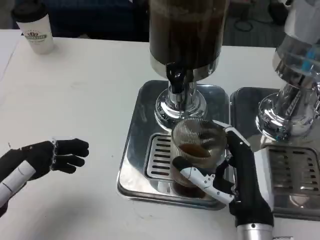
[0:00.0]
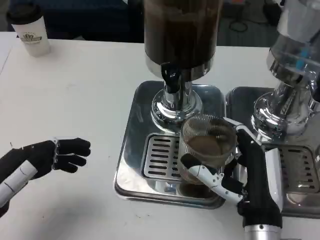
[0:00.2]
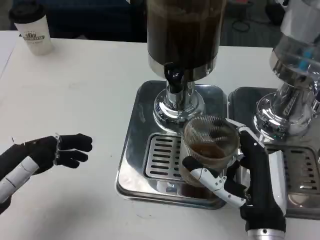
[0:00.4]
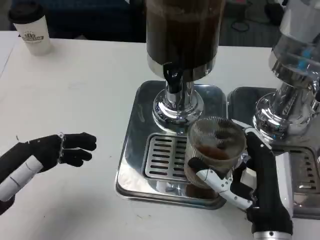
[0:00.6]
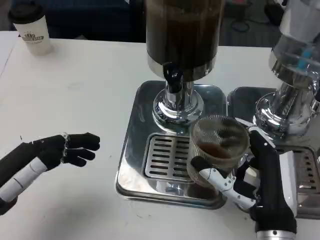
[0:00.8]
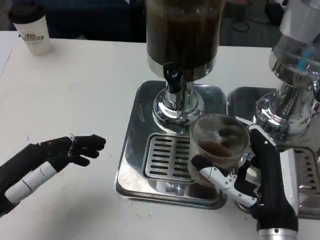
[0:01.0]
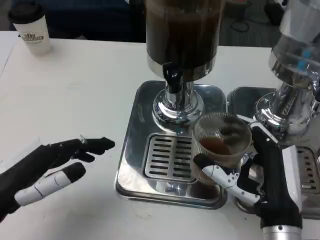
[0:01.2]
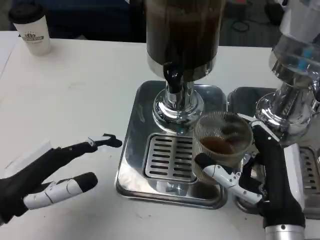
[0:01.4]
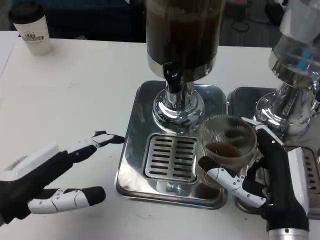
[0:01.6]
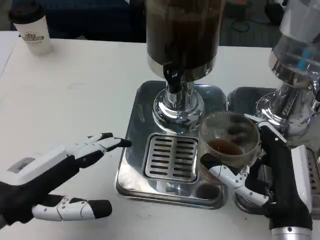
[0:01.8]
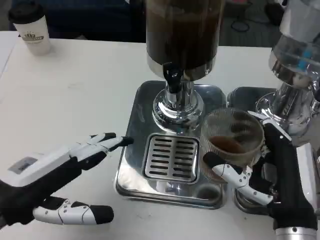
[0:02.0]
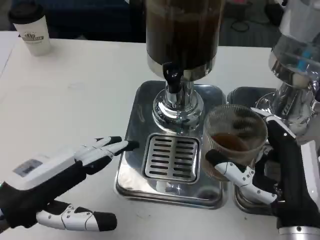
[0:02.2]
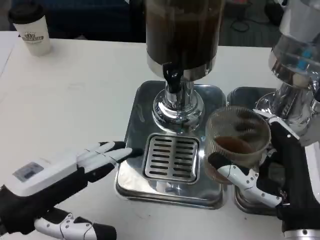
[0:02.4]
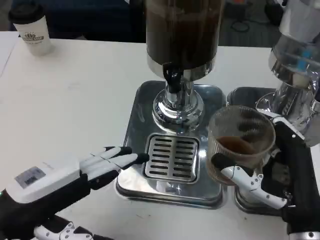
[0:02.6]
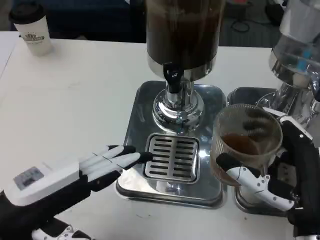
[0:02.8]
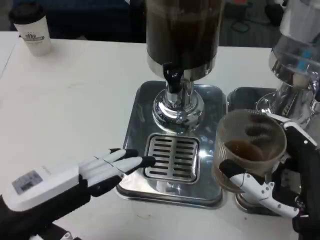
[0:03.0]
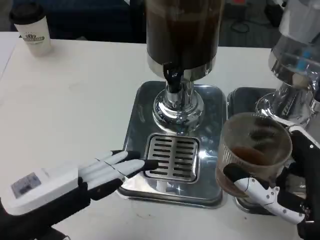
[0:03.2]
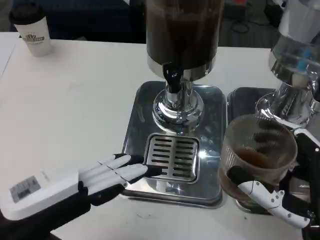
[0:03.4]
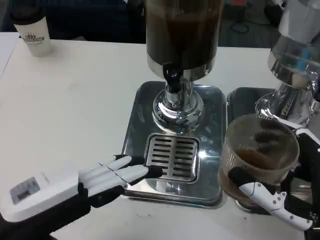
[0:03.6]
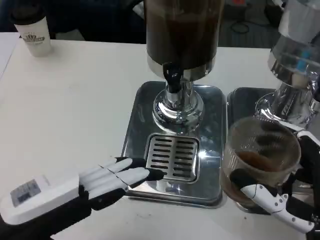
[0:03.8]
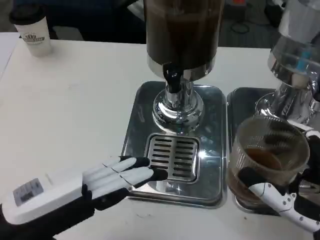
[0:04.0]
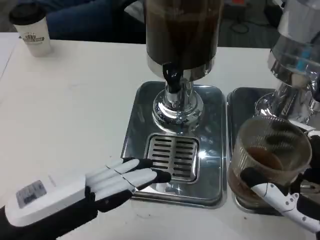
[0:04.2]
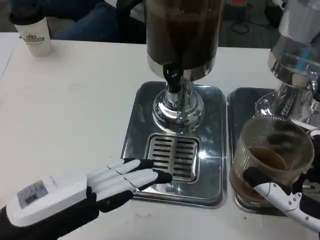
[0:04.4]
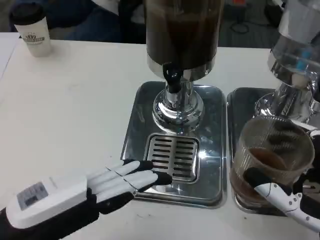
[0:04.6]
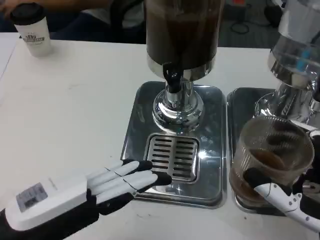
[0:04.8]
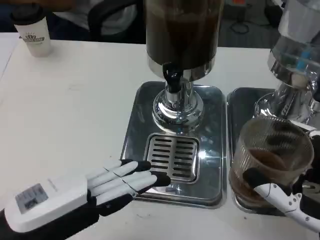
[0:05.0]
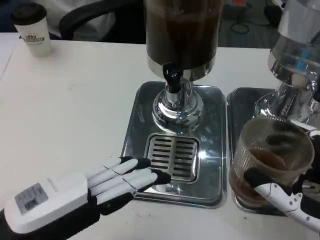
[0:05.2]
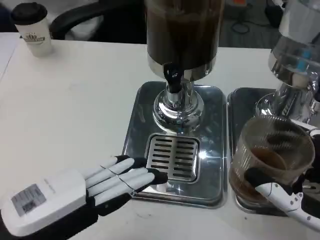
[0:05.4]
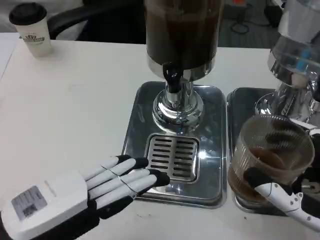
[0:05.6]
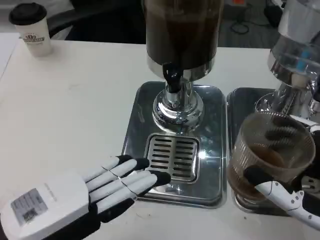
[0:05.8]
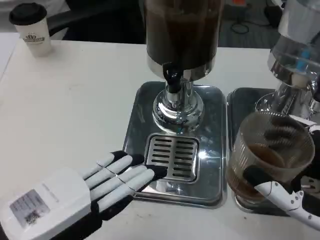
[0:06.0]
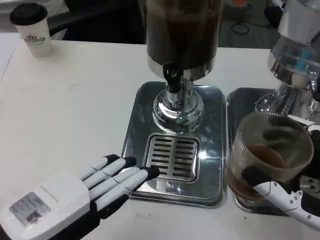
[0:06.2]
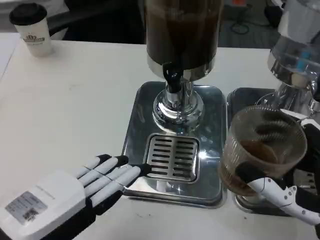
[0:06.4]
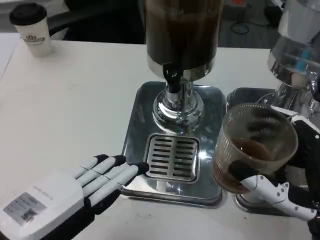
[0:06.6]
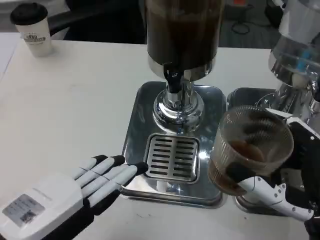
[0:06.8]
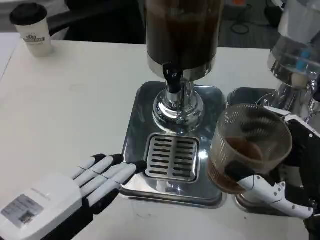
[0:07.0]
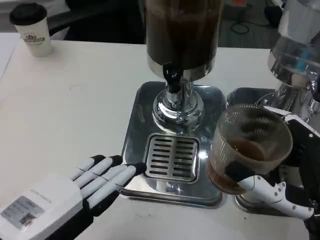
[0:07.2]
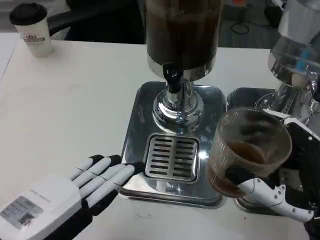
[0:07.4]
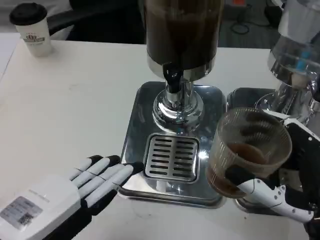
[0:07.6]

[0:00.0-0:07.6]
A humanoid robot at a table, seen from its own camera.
Task of the whole recording: Grasp the cup under the faucet to collect the drink, then remove the cup.
0:01.6 to 0:03.0: The right hand changes place by roughly 5 cm.
0:04.6 to 0:06.0: The hands make only small movements.
0:06.0 to 0:07.6: The hands move only a little.

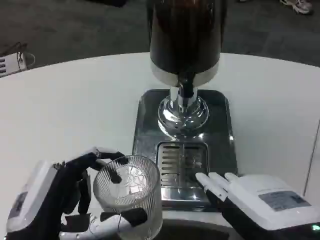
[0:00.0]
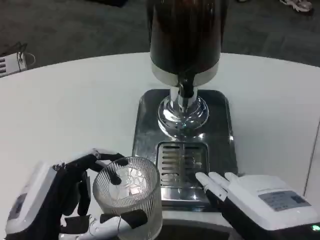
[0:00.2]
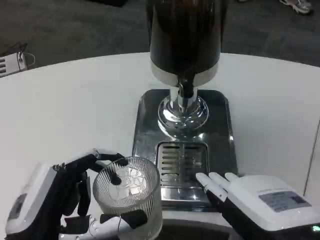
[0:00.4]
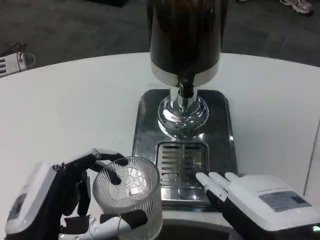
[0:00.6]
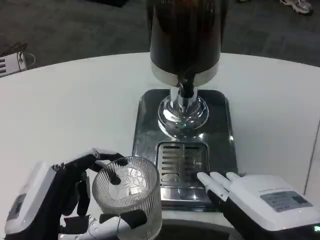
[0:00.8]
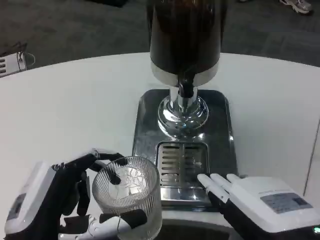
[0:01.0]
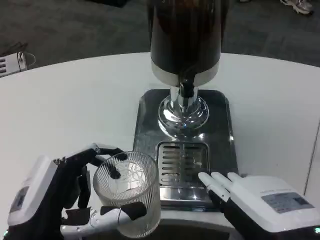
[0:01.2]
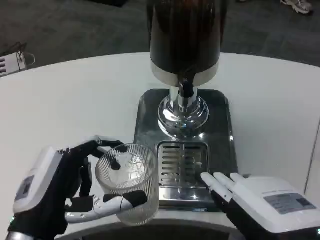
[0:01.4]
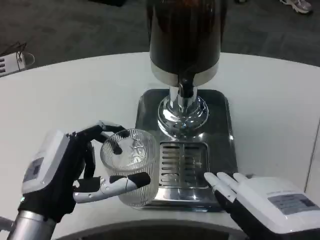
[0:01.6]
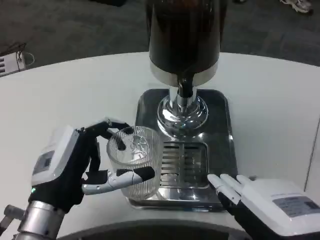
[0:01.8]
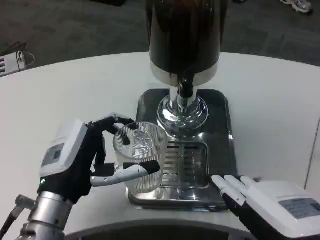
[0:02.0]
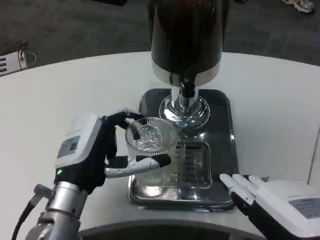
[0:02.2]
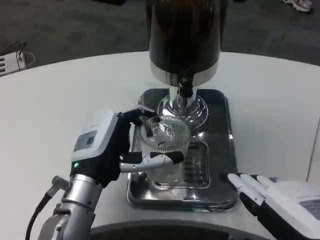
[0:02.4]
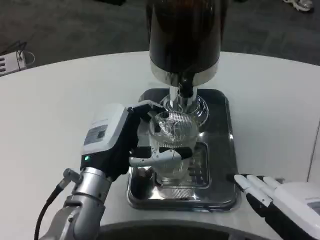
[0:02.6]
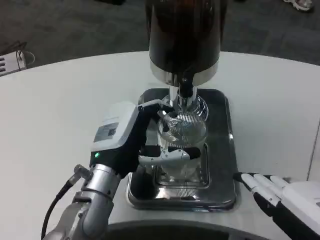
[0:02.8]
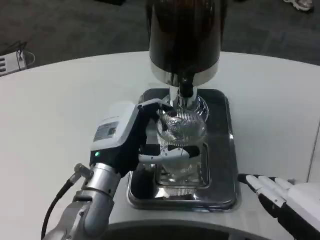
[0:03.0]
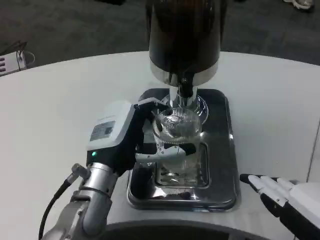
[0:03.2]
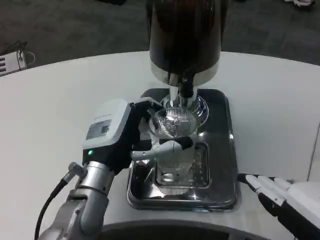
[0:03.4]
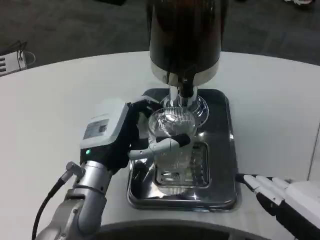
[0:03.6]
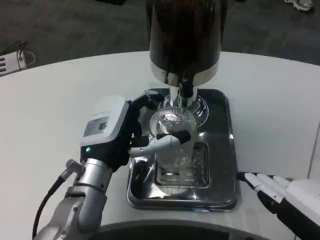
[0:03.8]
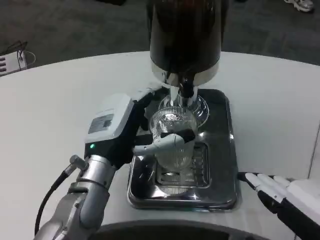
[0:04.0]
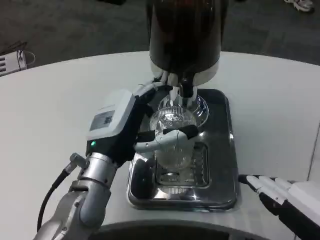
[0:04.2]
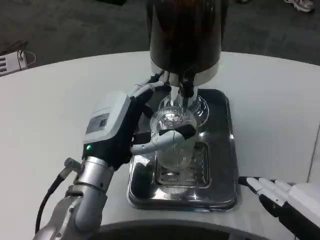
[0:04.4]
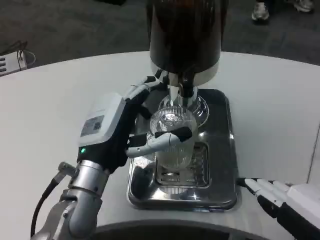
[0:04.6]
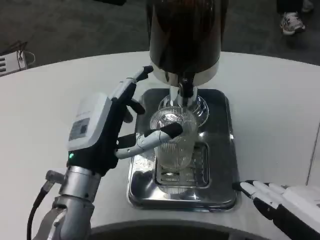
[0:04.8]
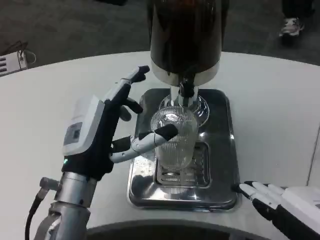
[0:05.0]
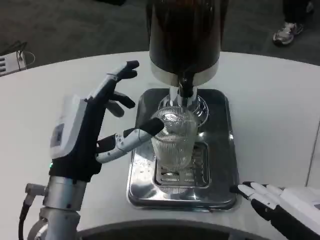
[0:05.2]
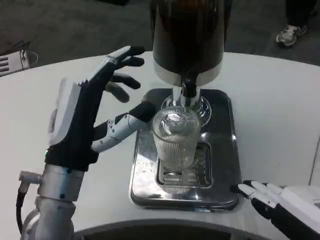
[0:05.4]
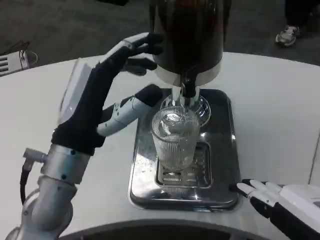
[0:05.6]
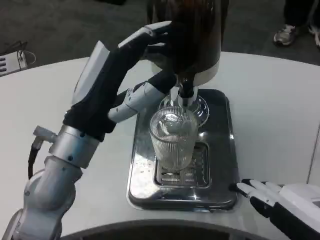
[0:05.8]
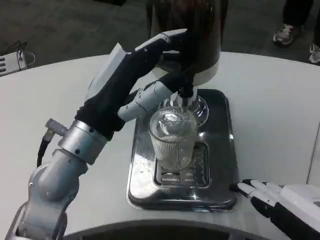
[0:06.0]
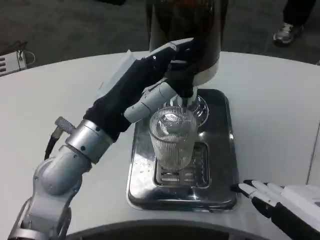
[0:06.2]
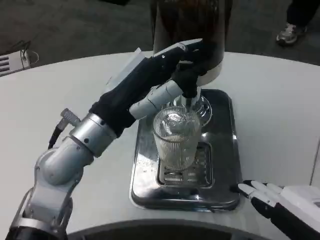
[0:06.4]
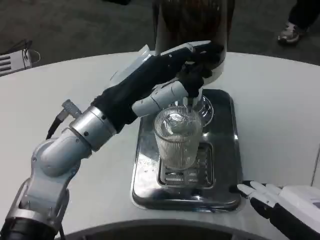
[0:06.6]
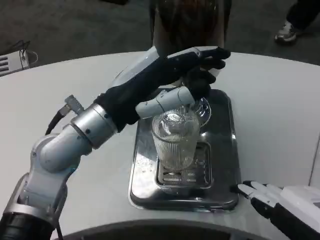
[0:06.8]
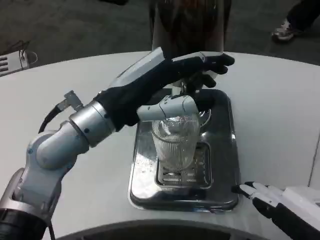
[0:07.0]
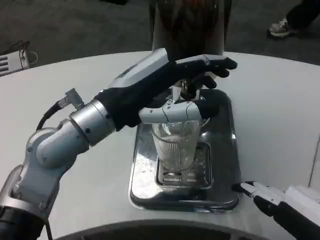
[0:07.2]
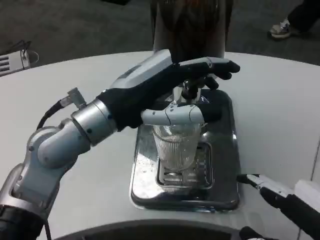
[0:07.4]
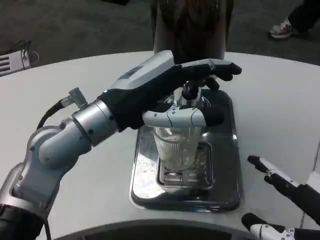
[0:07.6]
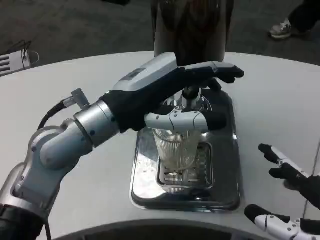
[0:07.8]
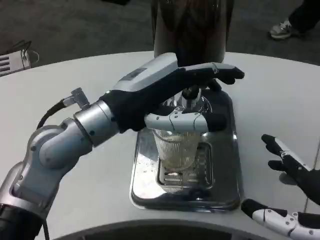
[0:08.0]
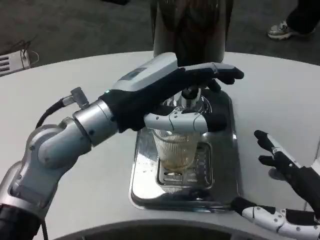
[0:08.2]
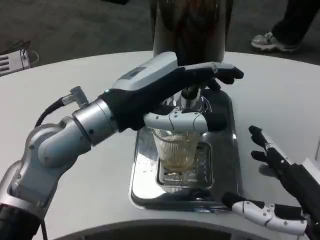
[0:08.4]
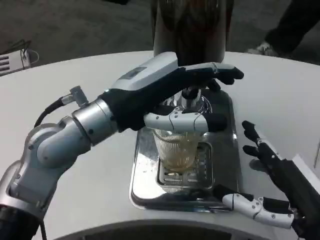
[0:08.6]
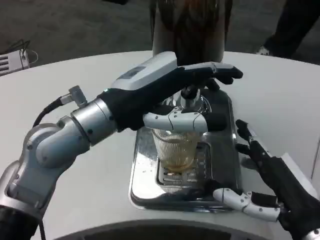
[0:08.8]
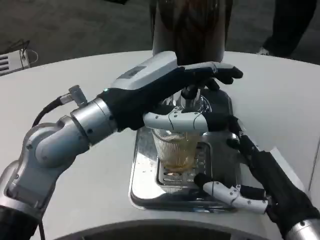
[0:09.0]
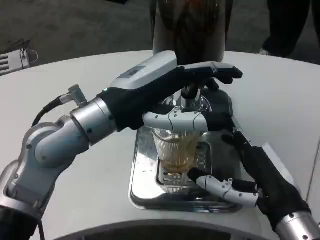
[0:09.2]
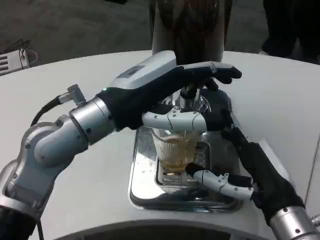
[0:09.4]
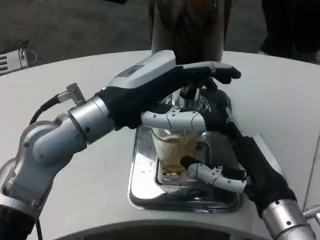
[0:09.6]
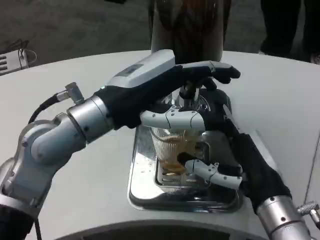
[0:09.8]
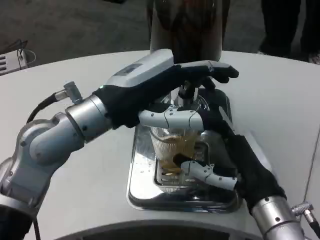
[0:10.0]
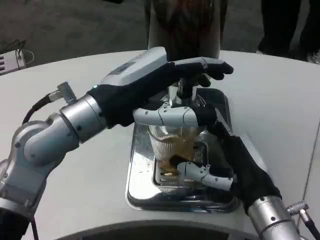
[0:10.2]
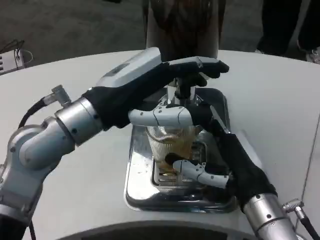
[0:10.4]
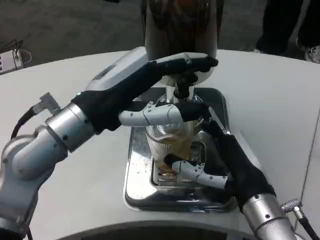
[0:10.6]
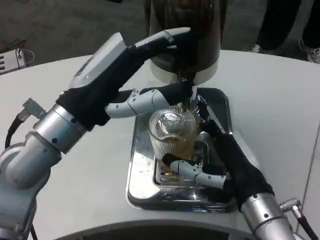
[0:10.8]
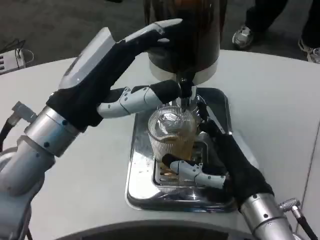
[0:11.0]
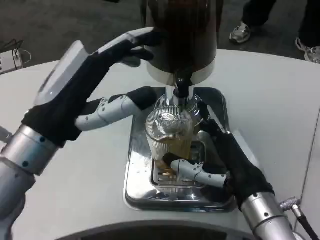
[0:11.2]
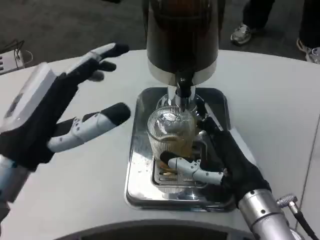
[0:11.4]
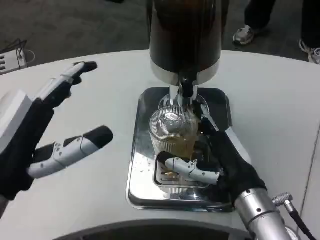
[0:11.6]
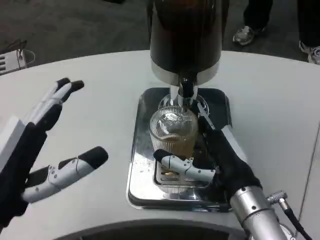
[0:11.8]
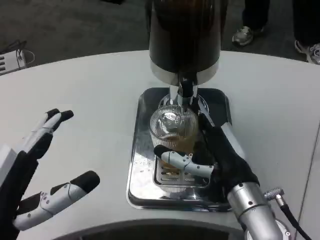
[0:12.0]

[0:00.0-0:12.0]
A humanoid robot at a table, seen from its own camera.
Task of the whole recording: Grasp the cup under the faucet to collect the drink, then remove the cup.
0:00.0 to 0:01.6: The left hand moves forward, approximately 5 cm.
0:01.6 to 0:03.0: The left hand is displaced forward and to the right by approximately 10 cm.
0:03.0 to 0:04.4: The hands stay close to where they were, moving slightly.
0:04.4 to 0:06.0: The left hand shifts some 5 cm upward.
0:07.6 to 0:09.0: The right hand travels forward and downward by approximately 10 cm.
0:09.0 to 0:10.4: The right hand changes place by approximately 5 cm.
0:10.4 to 0:12.0: The left hand goes some 20 cm backward, downward and to the left.

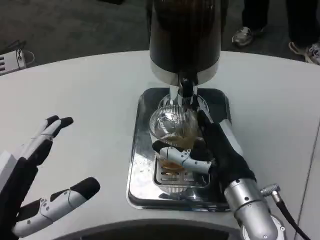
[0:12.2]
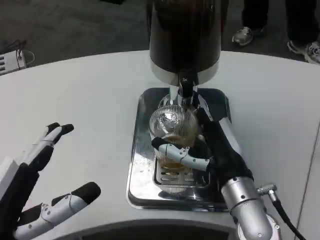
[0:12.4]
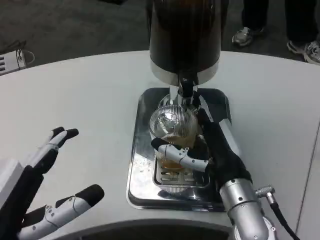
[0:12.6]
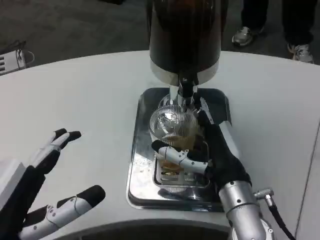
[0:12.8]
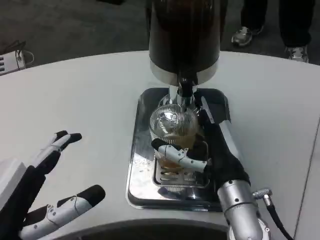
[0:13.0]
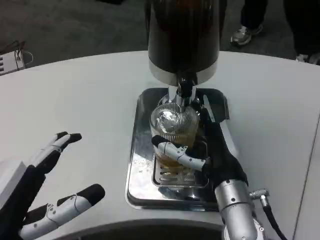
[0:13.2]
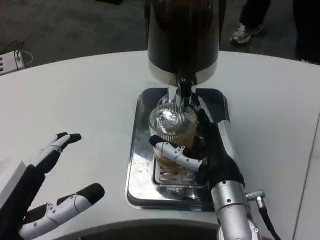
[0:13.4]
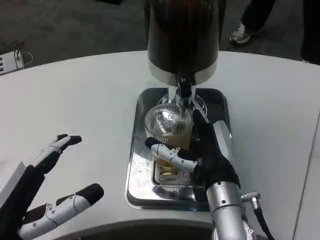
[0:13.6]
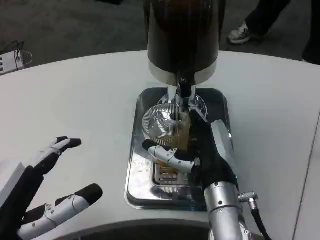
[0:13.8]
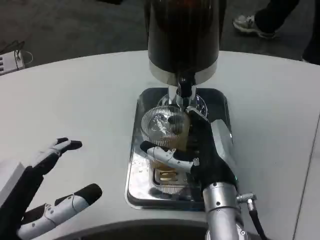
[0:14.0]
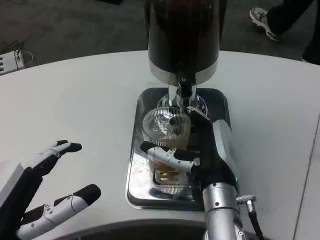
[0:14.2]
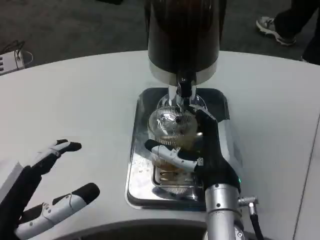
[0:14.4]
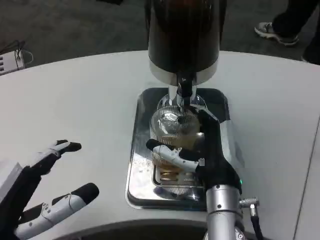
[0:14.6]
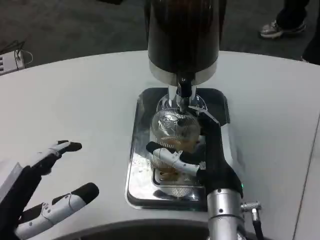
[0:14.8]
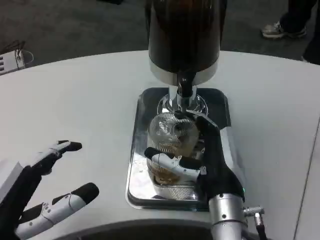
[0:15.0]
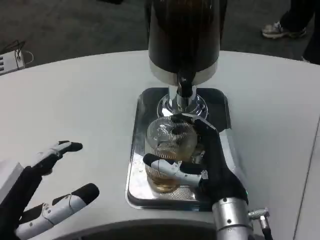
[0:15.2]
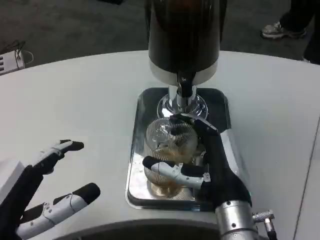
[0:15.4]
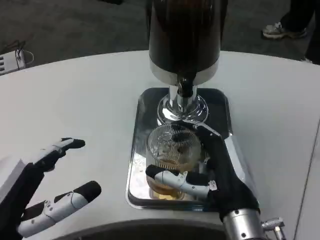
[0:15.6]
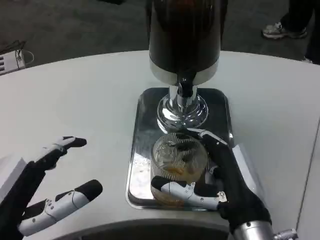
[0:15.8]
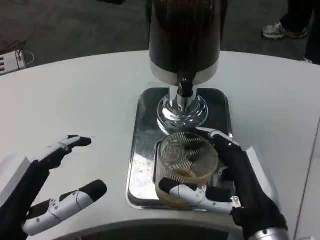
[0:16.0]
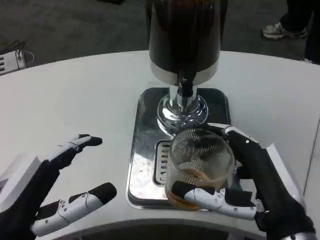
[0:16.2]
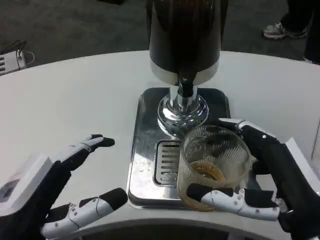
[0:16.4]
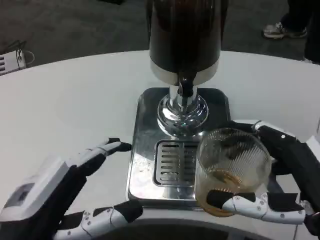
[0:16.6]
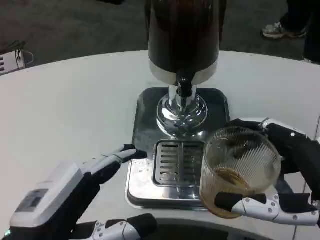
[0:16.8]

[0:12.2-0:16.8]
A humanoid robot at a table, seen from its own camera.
Task of the whole recording: Grasp the cup under the faucet to collect the drink, then remove the cup.
0:13.8 to 0:15.2: There are only small adjustments of the hands.
0:15.2 to 0:16.8: The right hand is displaced to the right, backward and upward by roughly 20 cm.
